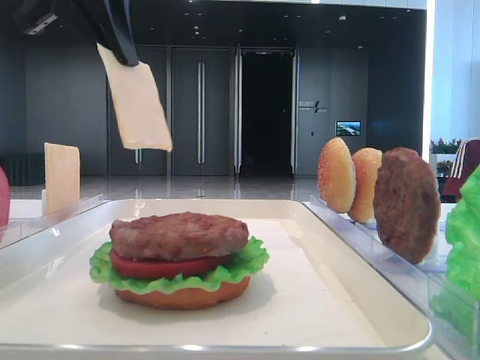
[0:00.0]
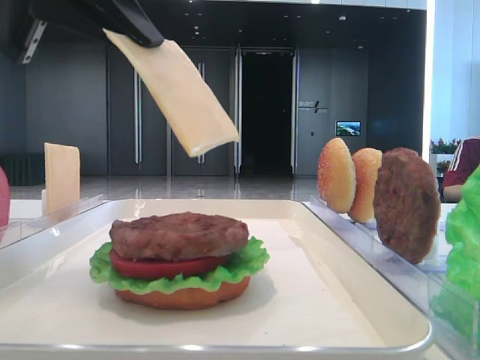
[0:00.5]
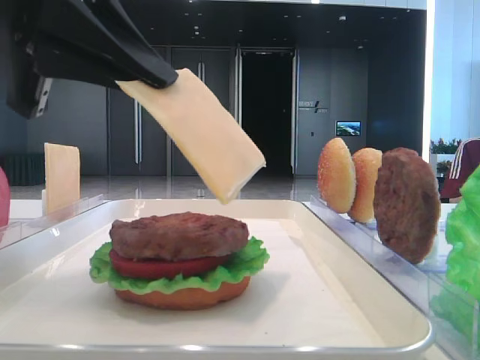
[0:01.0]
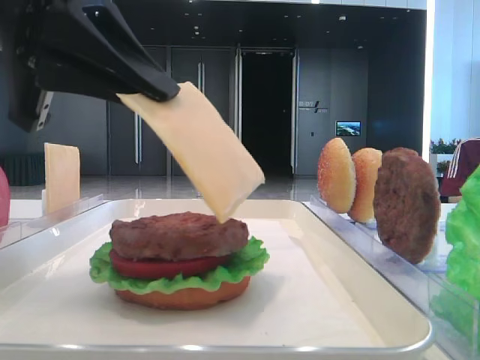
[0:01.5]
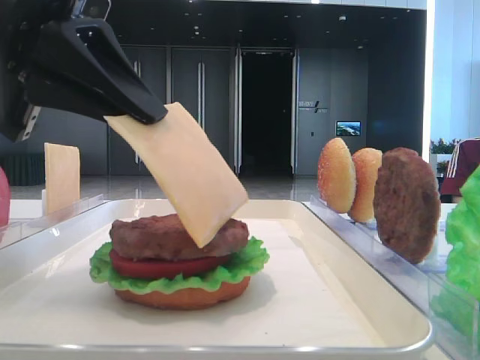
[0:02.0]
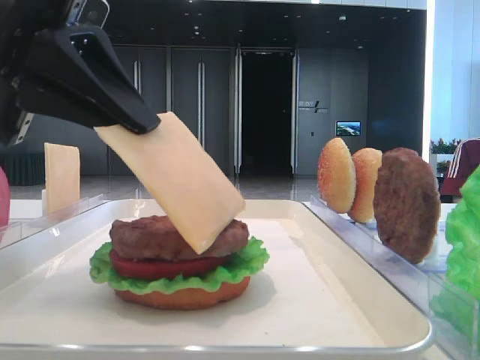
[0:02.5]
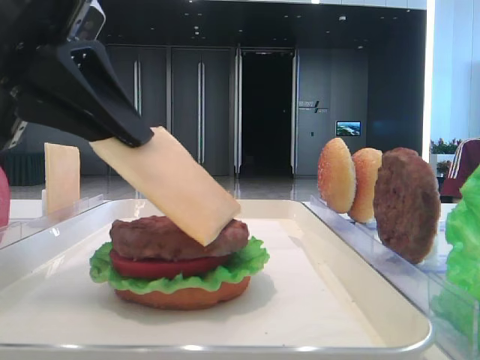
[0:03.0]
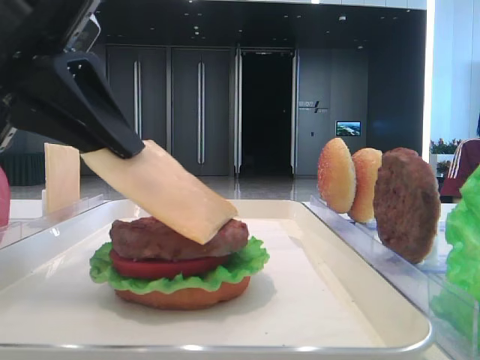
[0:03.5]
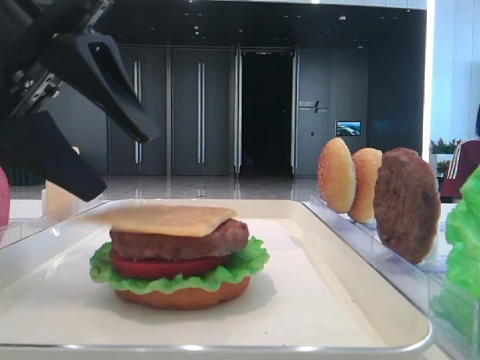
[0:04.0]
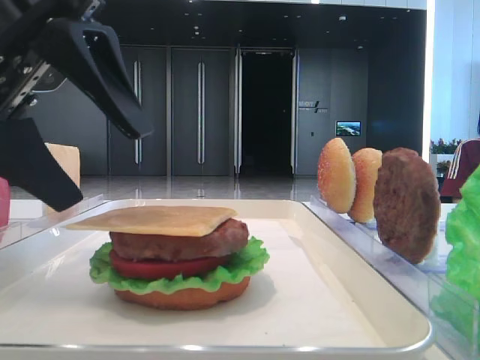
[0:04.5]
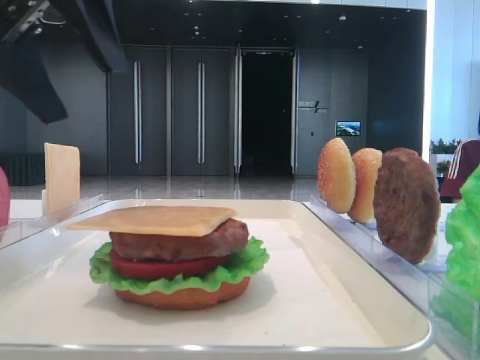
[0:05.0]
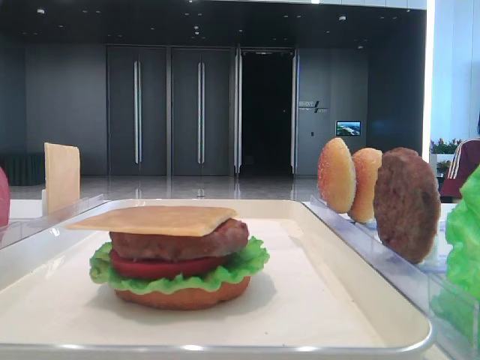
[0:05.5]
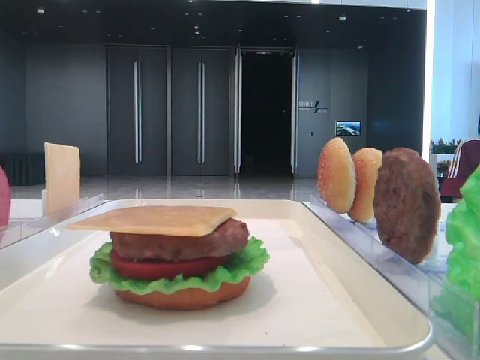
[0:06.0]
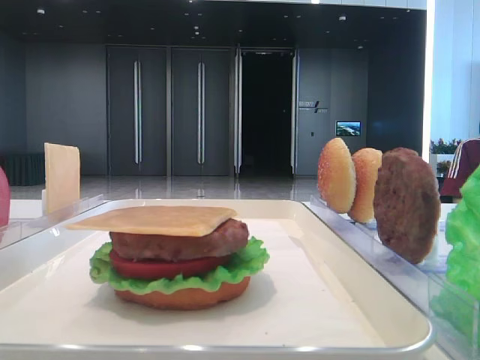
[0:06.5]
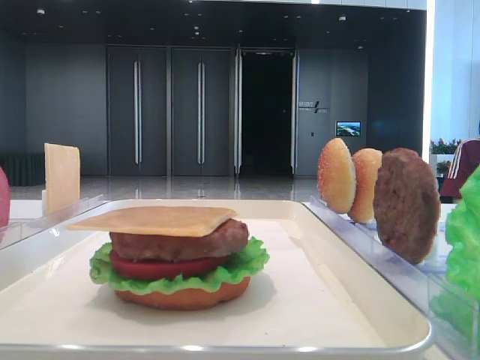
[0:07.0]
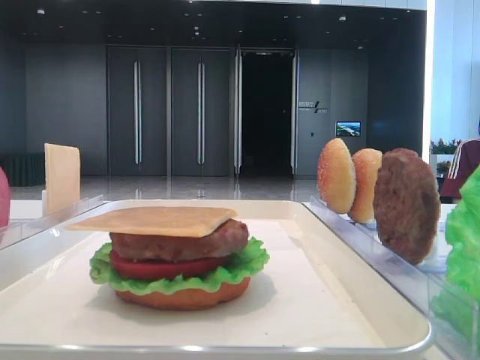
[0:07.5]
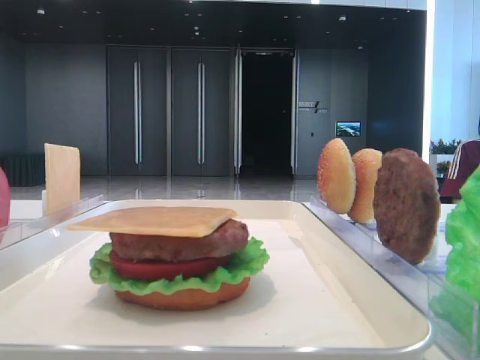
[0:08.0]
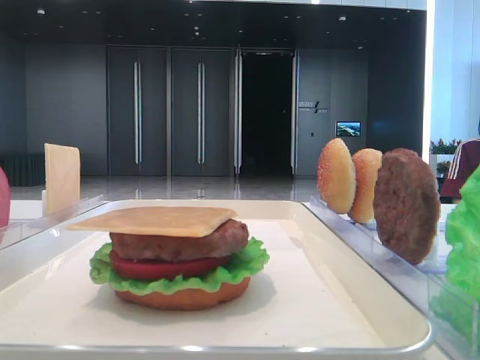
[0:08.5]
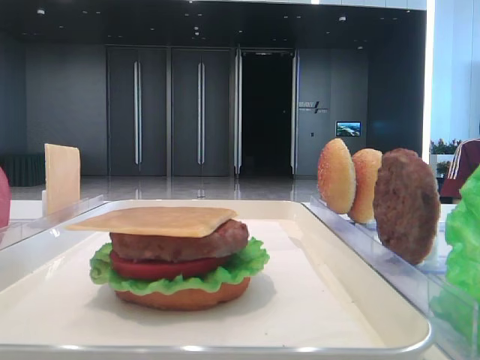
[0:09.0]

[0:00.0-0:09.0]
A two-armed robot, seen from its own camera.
Step, 0:00.0 to 0:04.0: Place the cheese slice on the patty with the left hand.
0:00.0 to 0:02.0: The left gripper travels downward and backward by about 15 cm.
0:02.0 to 0:04.5: The left gripper opens.
0:04.5 to 0:07.0: The left gripper goes approximately 20 cm to the left, backward and upward.

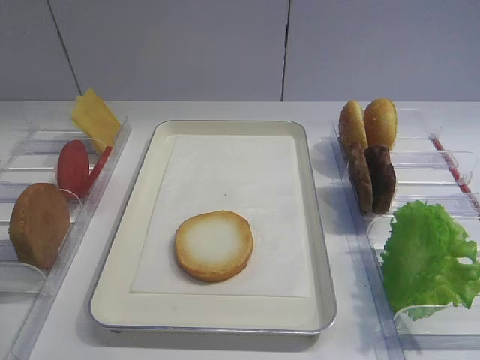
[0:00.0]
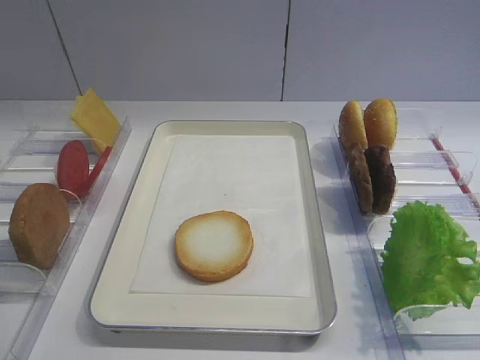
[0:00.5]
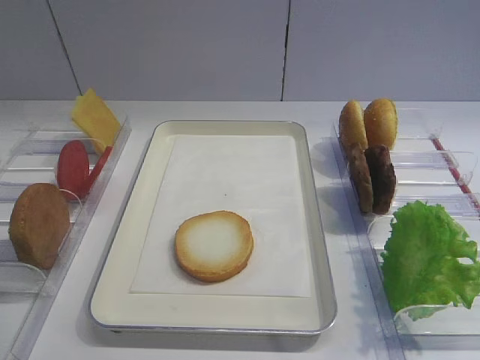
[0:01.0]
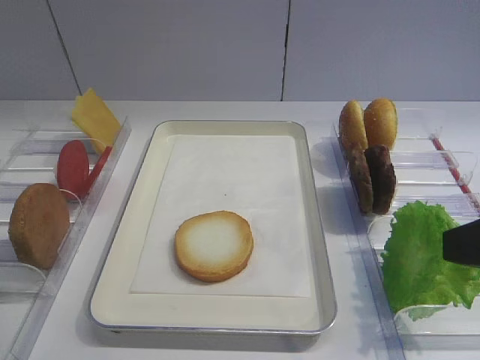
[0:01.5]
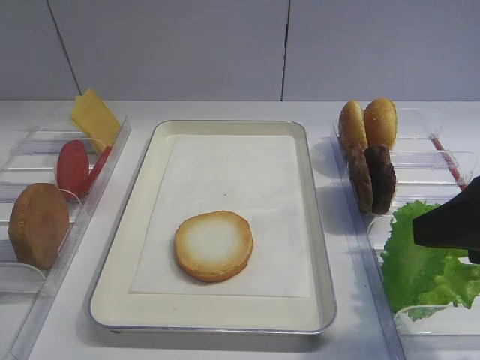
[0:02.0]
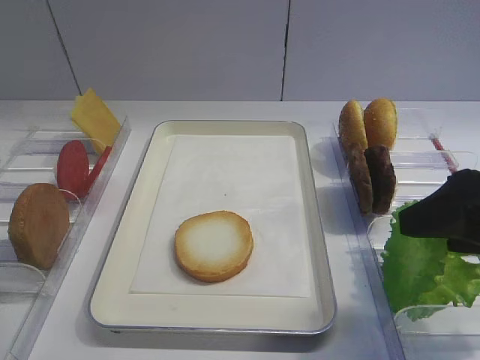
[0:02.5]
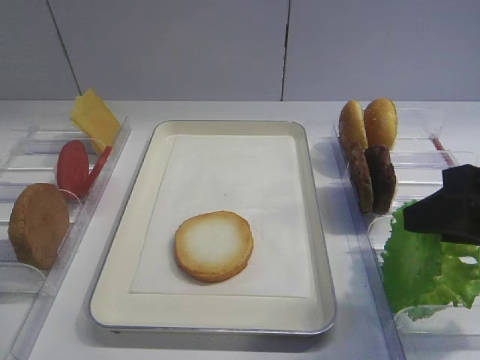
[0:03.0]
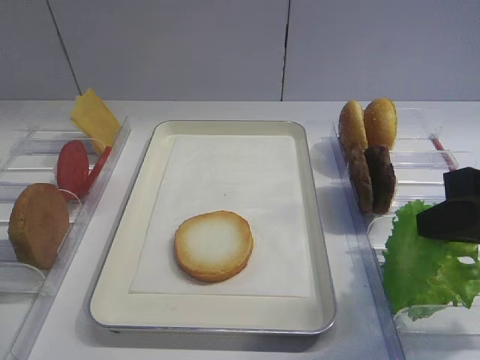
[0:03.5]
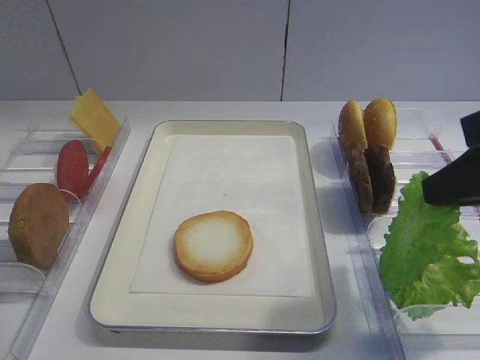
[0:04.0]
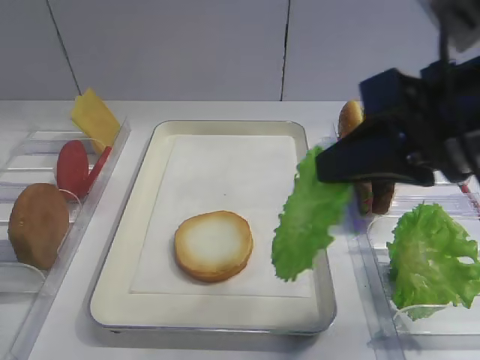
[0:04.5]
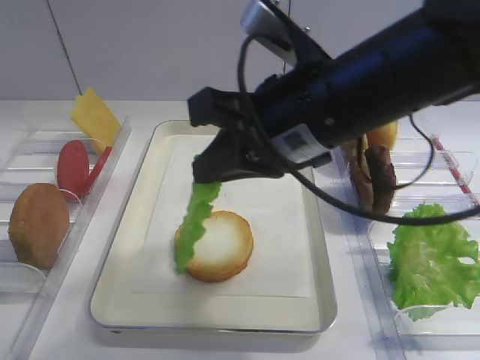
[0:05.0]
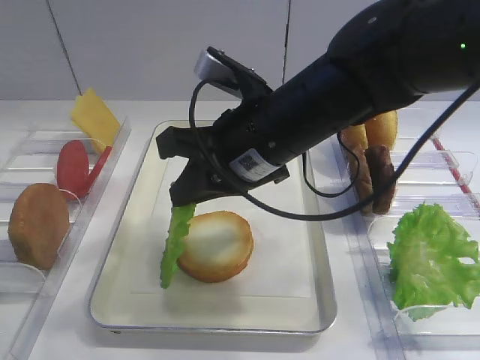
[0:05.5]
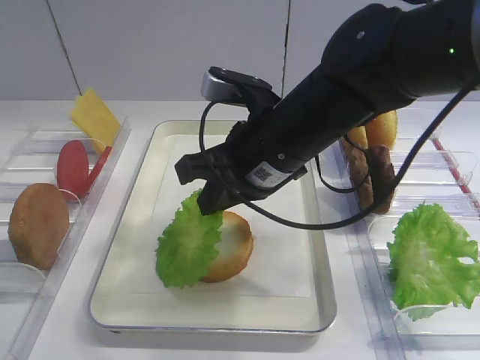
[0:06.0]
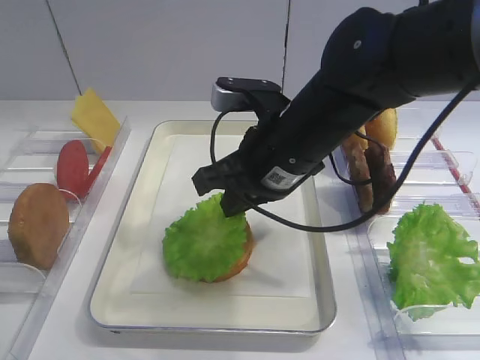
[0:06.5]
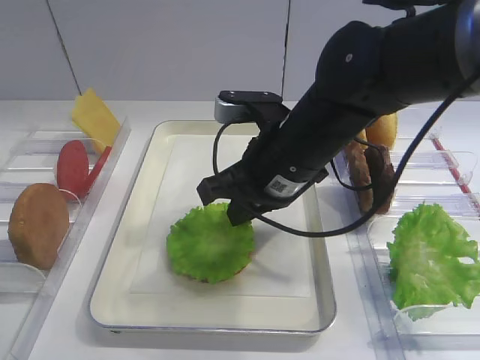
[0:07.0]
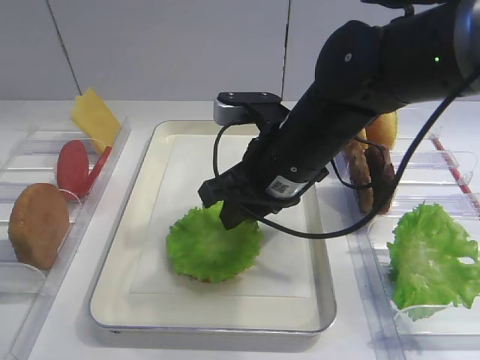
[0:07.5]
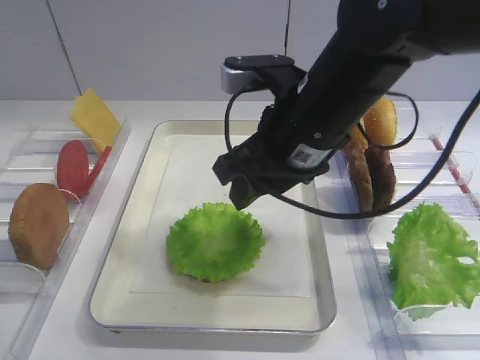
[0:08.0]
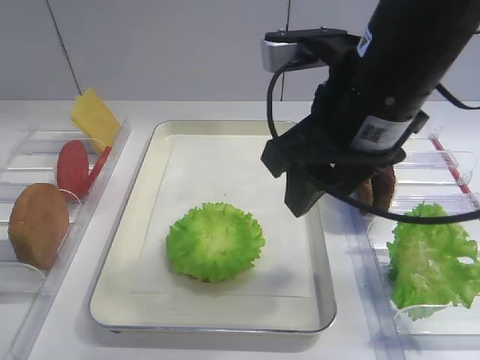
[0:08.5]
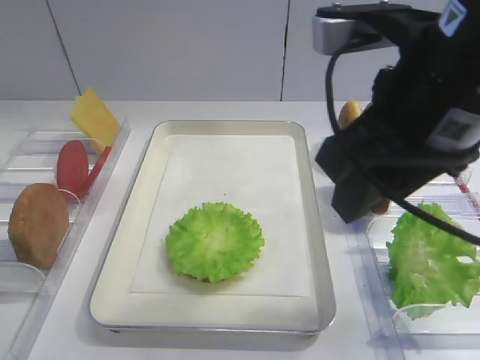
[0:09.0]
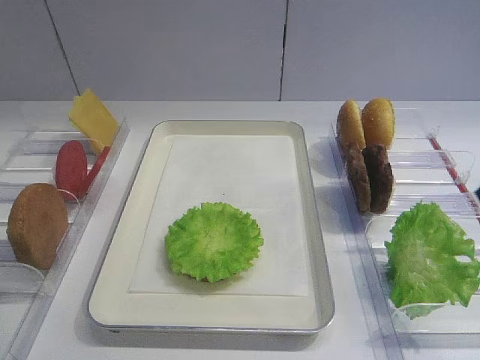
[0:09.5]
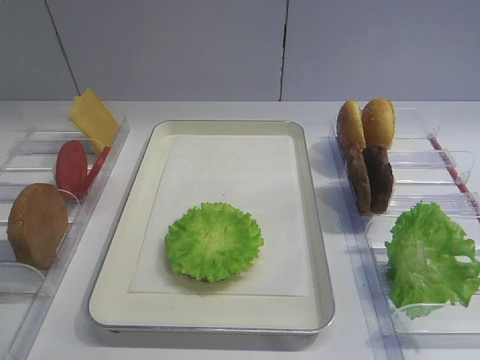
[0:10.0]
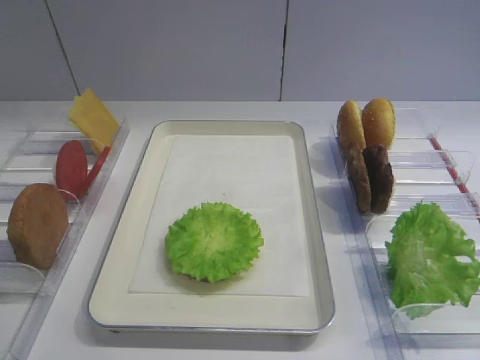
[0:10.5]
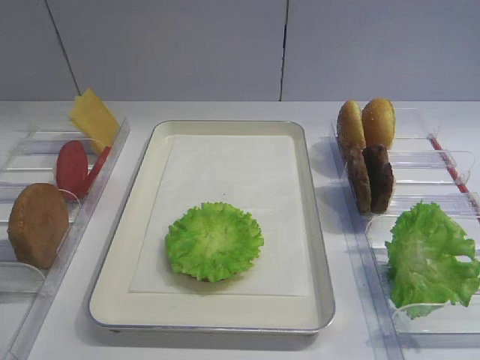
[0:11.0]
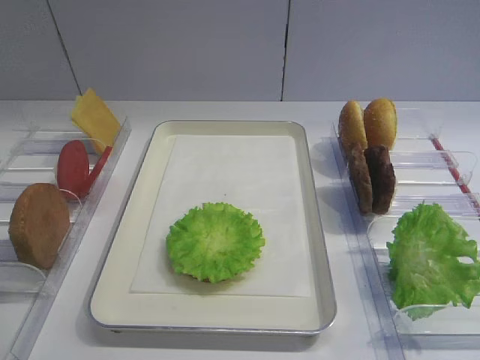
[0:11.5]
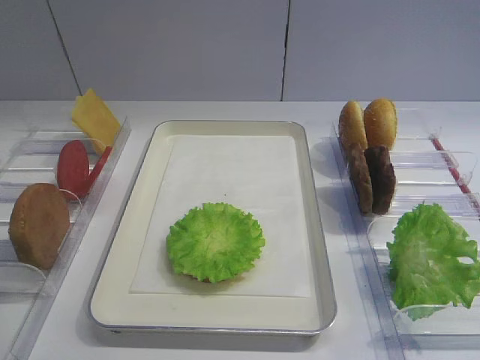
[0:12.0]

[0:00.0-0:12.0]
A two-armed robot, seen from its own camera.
Step, 0:00.0 to 0:04.0: Pick up the lettuce leaf with the right gripper.
Step, 0:04.5 to 0:08.0: Place the lettuce leaf on the bread slice with the right gripper.
0:02.0 to 0:04.0: The right gripper closes its fingers.
0:04.0 to 0:06.0: The right gripper moves to the left and forward, roughly 20 cm.
0:06.0 to 0:08.0: The right gripper opens its fingers.
0:08.0 to 0:10.0: The right gripper goes some 30 cm backward and to the right.
0:10.0 to 0:12.0: The right gripper goes about 10 cm downward.

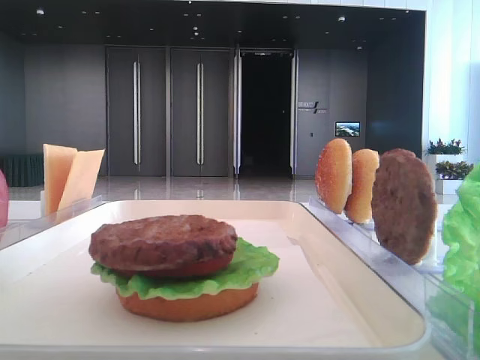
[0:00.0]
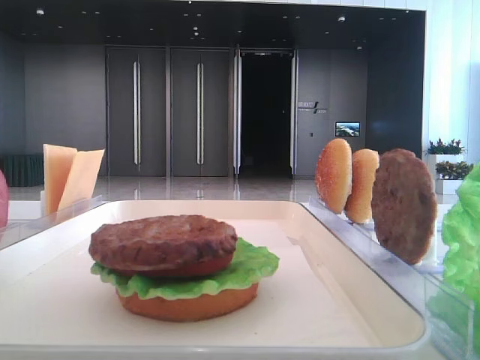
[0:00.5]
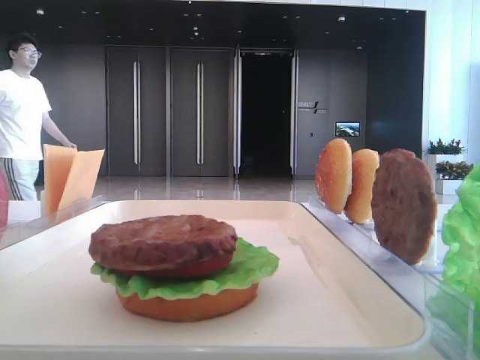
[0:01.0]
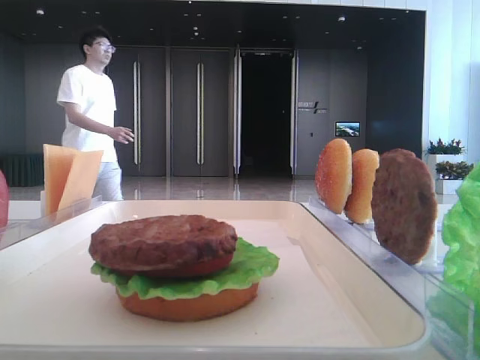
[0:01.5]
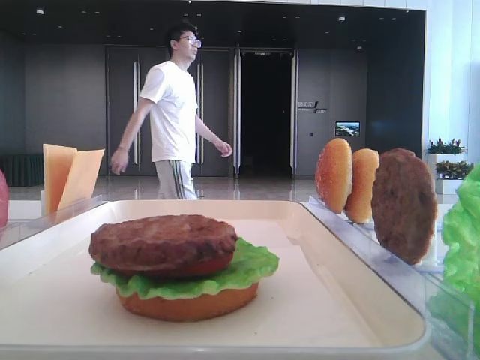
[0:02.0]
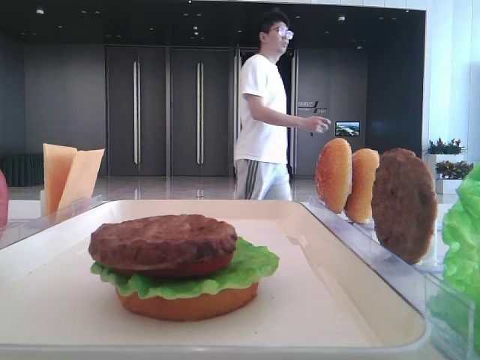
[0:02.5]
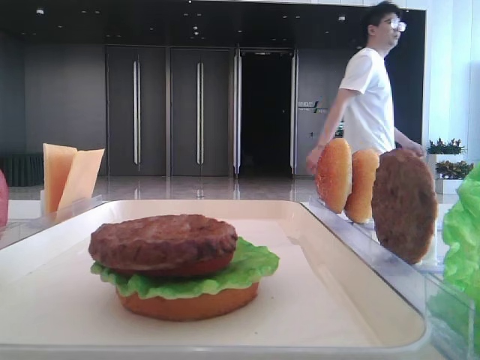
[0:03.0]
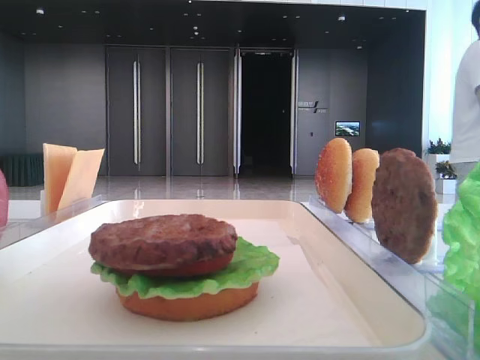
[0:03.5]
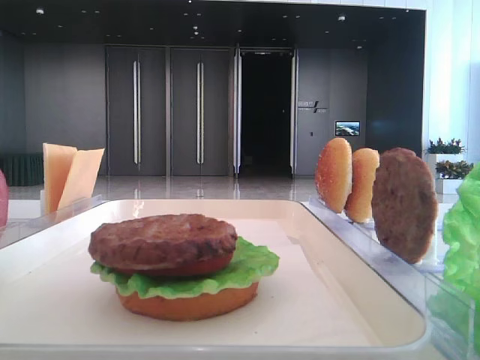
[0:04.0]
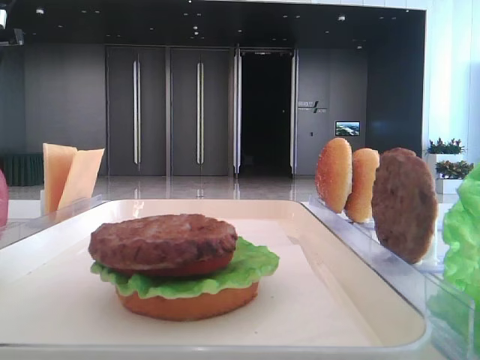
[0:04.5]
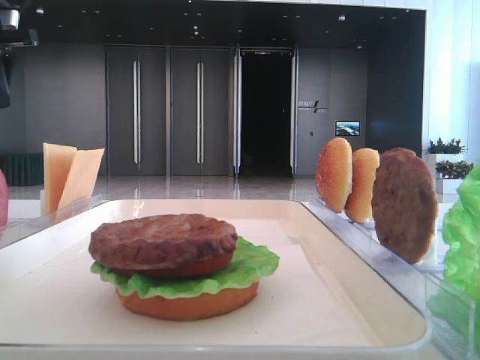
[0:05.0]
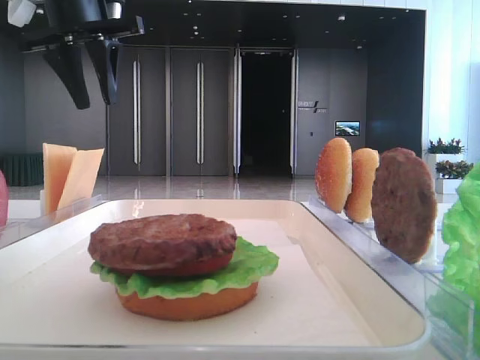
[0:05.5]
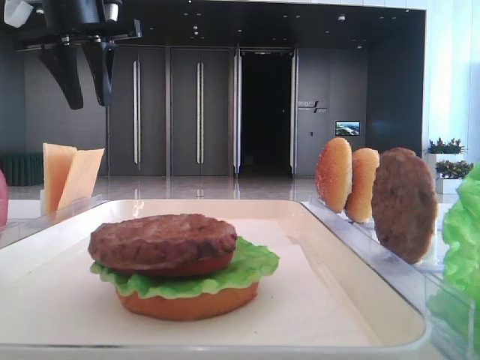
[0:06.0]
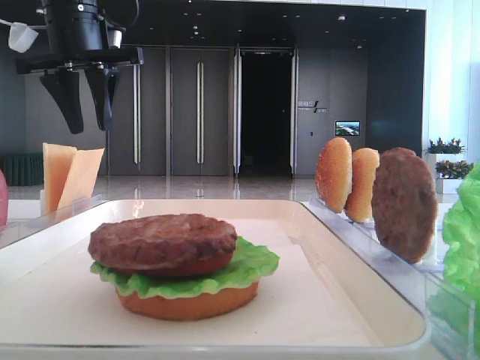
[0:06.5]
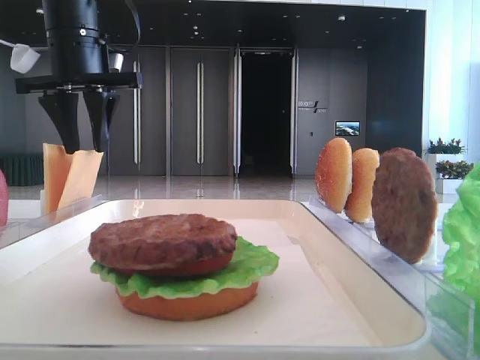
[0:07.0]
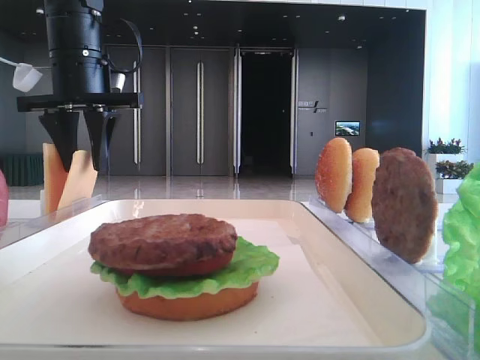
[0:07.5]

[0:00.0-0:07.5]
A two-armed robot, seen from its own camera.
0:02.0 to 0:04.0: The left gripper shifts some 30 cm forward.
0:04.0 to 0:05.5: The left gripper travels to the right by some 15 cm.
0:05.5 to 0:07.5: The left gripper shifts about 5 cm downward.
